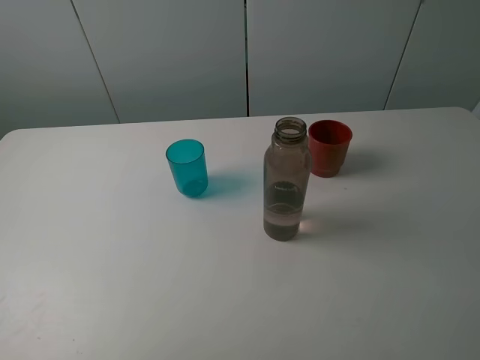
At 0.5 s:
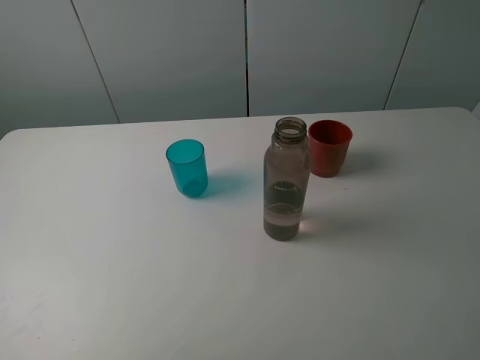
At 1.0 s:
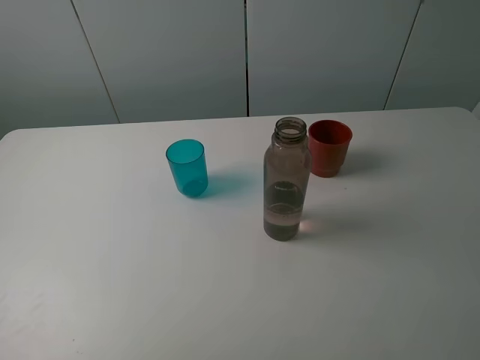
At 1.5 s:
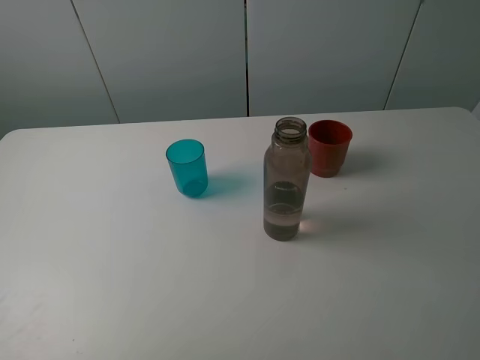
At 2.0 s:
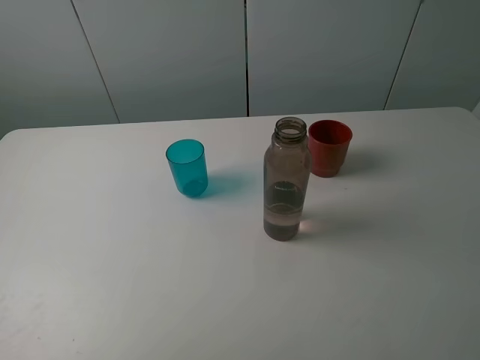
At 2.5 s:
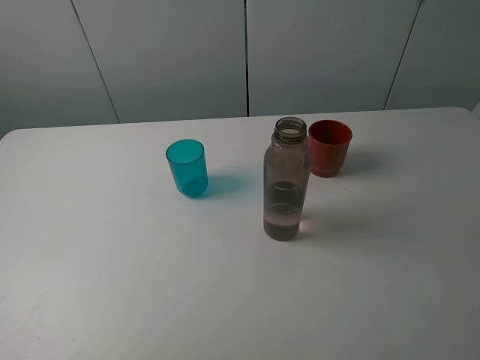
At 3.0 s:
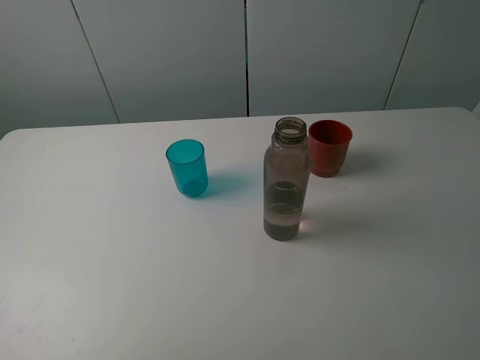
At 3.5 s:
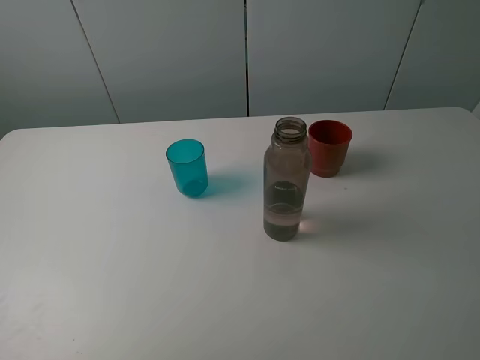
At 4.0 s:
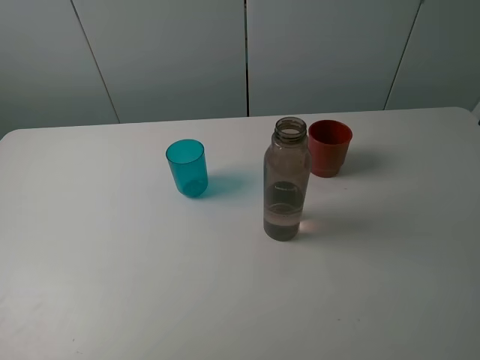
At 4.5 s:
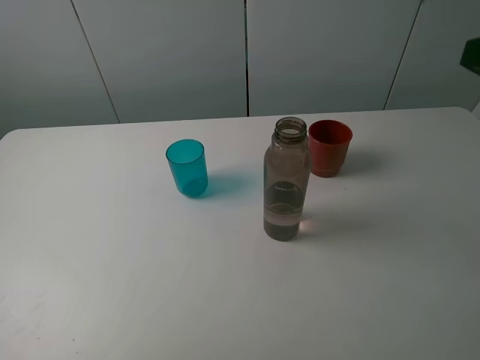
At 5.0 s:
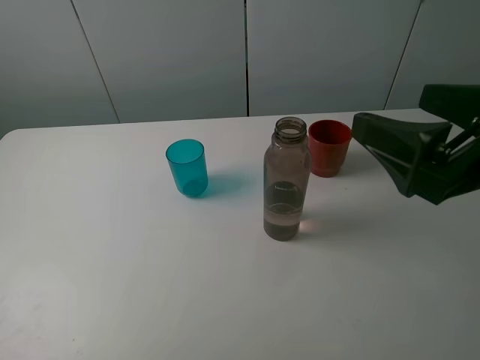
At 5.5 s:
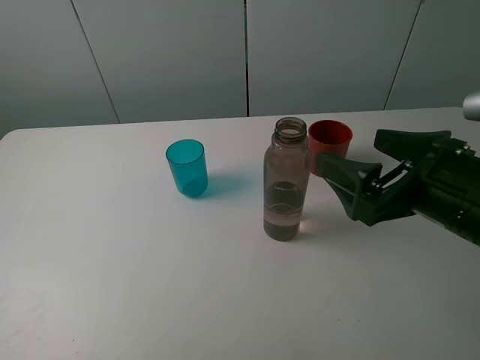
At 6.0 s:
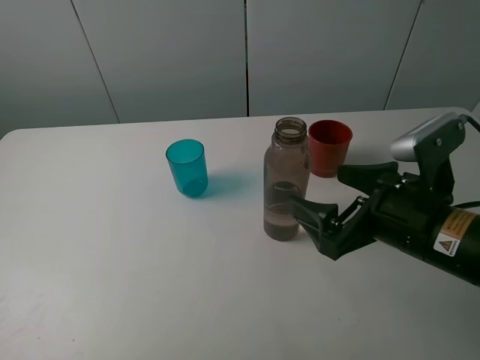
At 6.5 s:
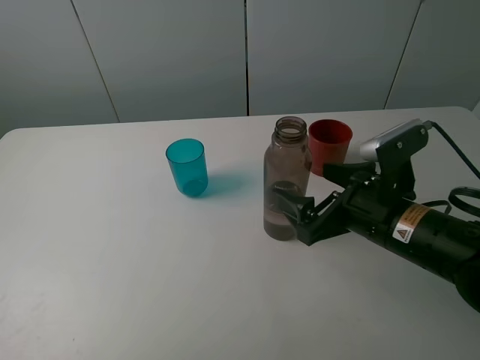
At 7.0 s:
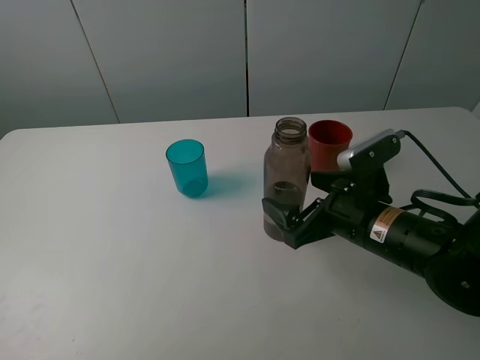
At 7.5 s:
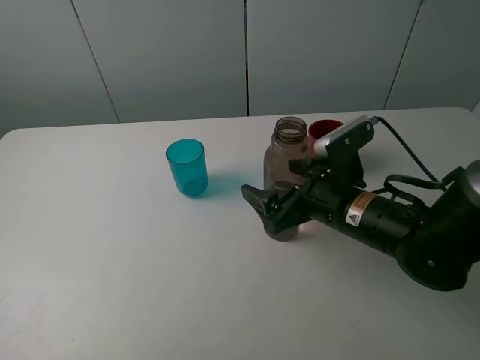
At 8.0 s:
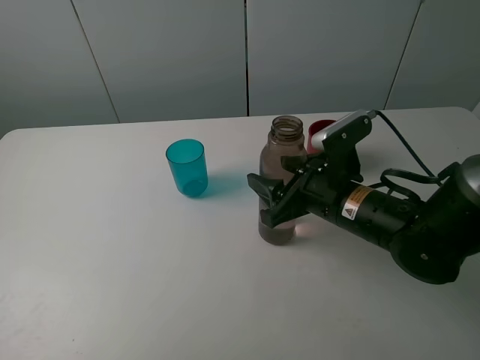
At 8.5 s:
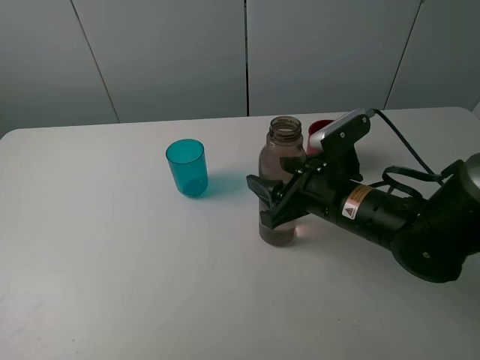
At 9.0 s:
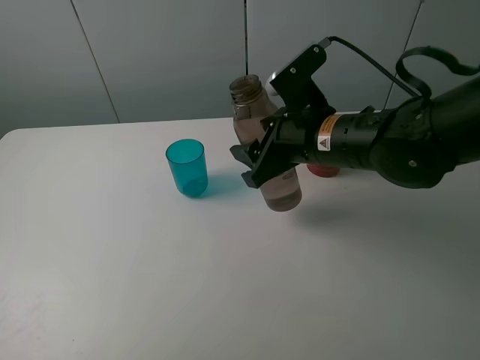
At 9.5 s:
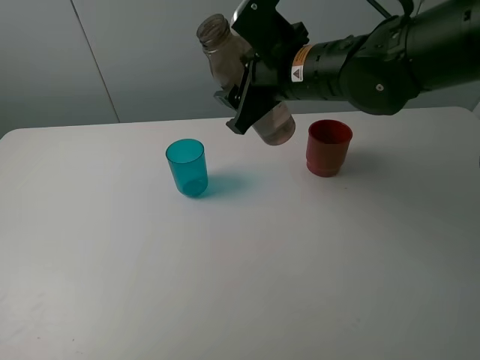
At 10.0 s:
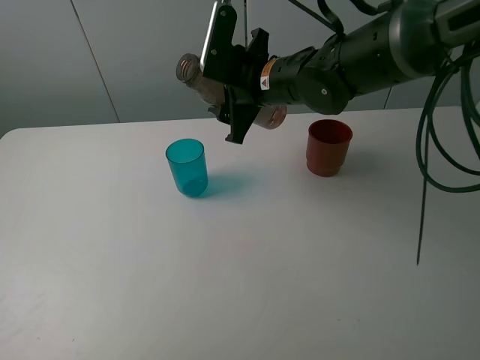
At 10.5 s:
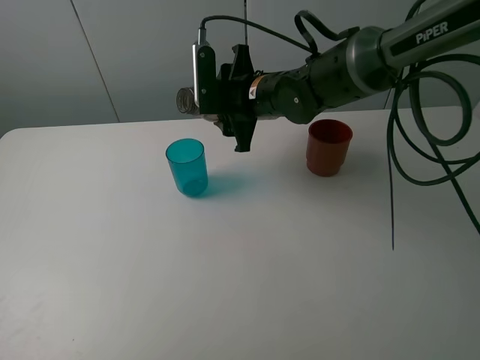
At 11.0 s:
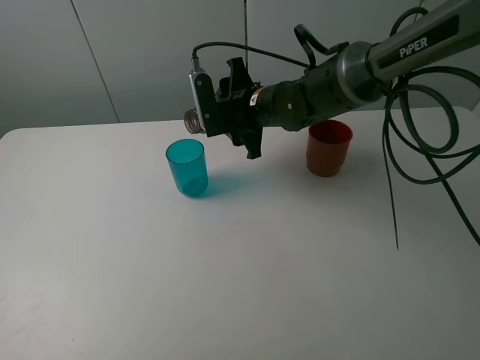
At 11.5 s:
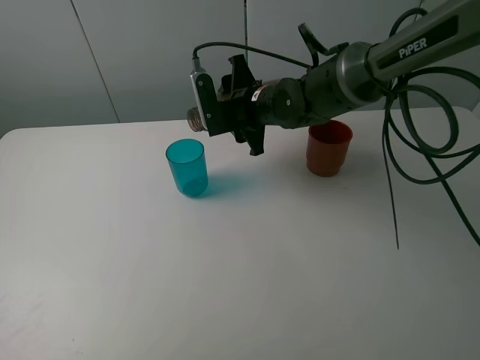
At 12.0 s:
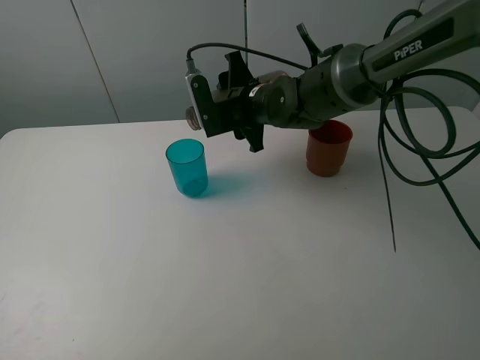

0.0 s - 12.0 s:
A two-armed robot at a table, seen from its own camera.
Task of the whole recording: pick up the bottle and pour water into the cup, then pick up the cup containing water and pour it into another cup.
Step, 0.0 s - 8.0 s: Grasp the brown bottle with the right gripper.
0.0 s - 2.0 s: Both grippers stay about where they are.
4.0 s - 6.0 s: The right gripper goes approximately 20 cm downward, to the left and forward.
6.0 s - 8.0 s: The right gripper heads forward and to the left, covering approximately 10 cm, and closes up.
8.0 s - 10.0 s: The right gripper travels forward, upward and to the left by about 20 cm.
10.0 s - 12.0 s: The right gripper changes place by about 5 cm.

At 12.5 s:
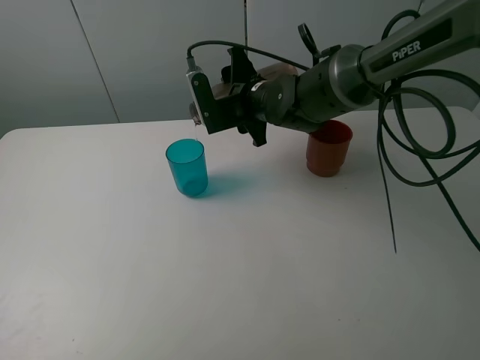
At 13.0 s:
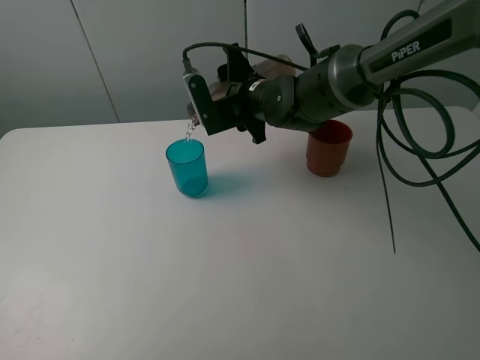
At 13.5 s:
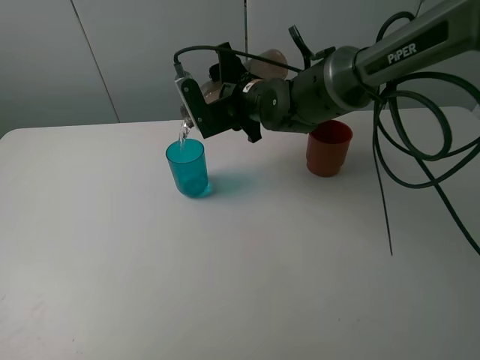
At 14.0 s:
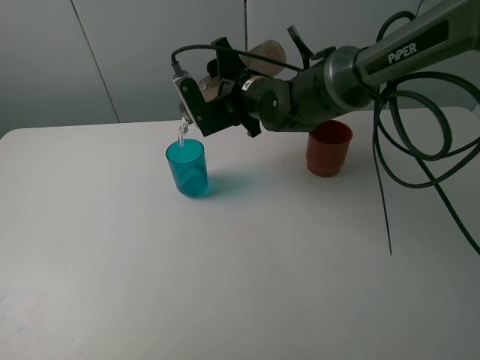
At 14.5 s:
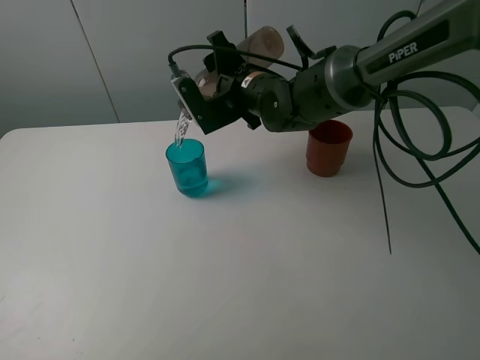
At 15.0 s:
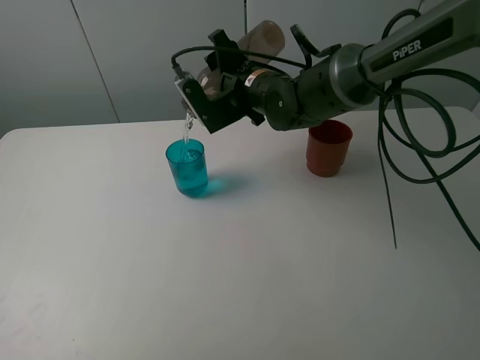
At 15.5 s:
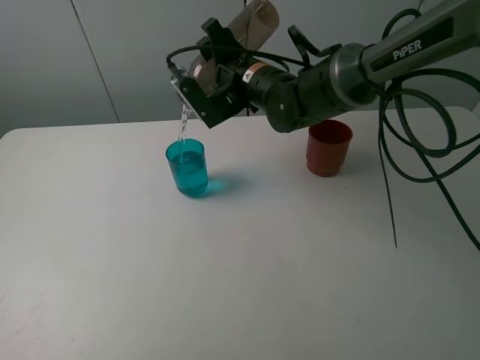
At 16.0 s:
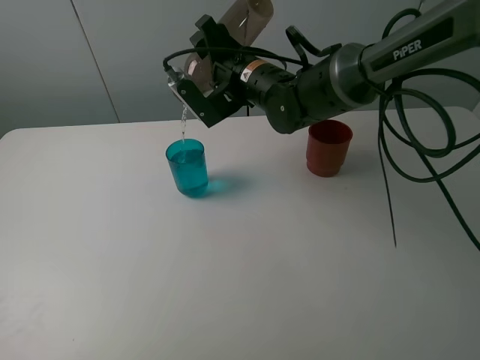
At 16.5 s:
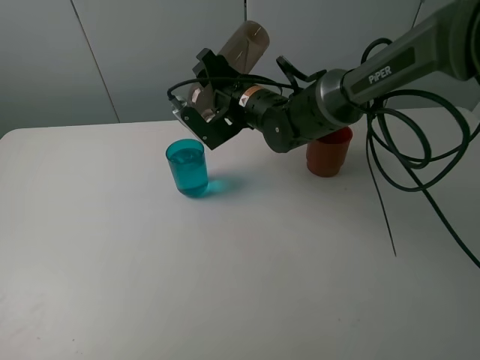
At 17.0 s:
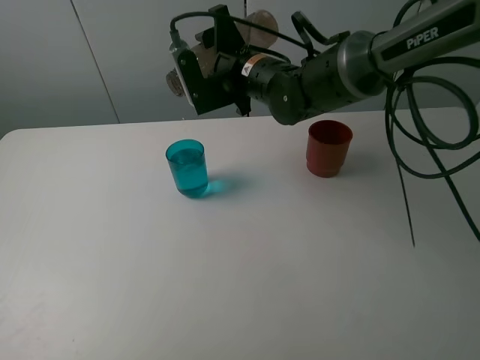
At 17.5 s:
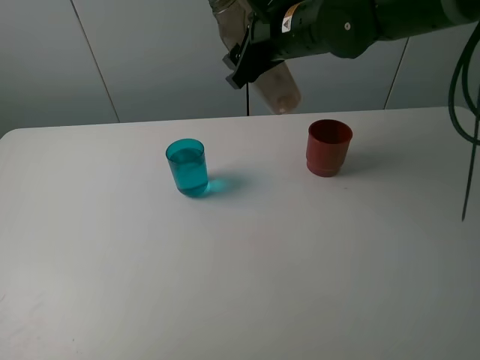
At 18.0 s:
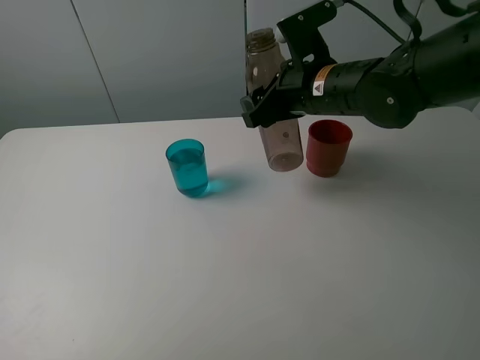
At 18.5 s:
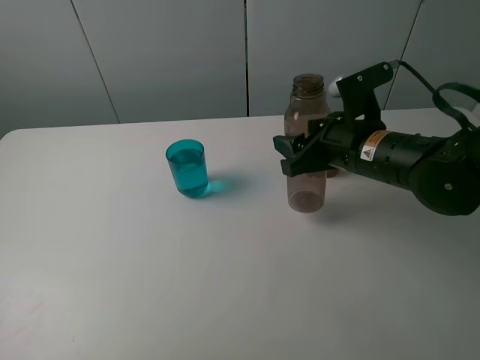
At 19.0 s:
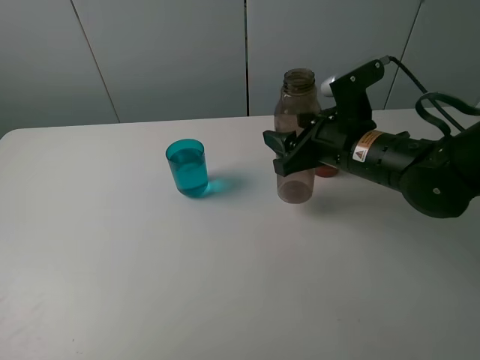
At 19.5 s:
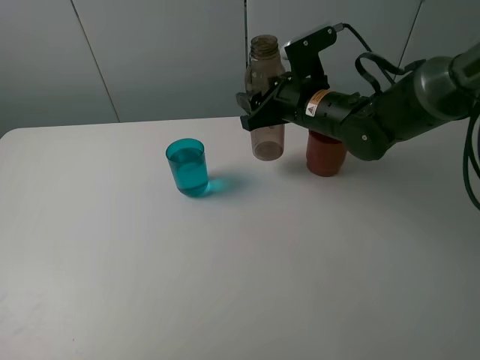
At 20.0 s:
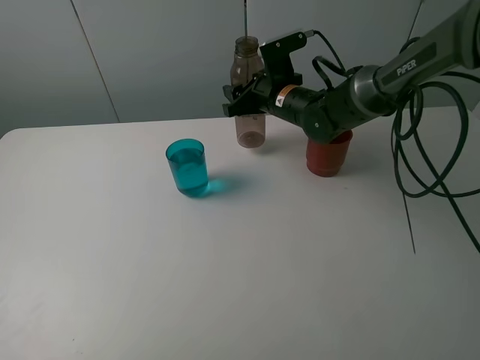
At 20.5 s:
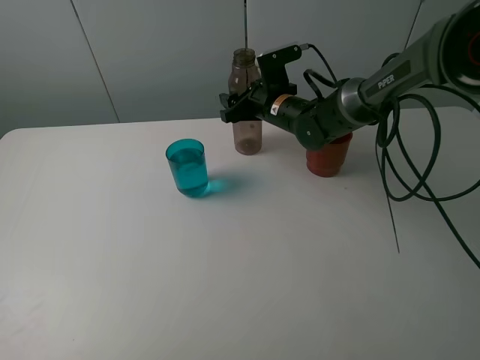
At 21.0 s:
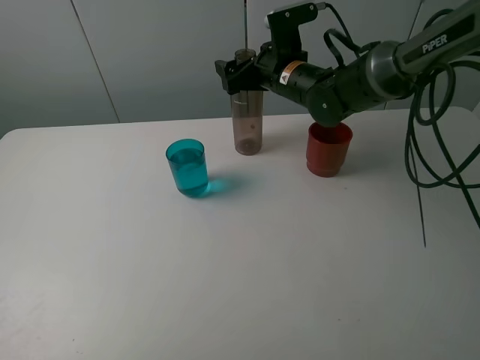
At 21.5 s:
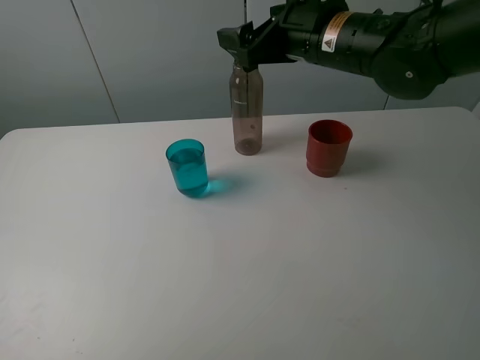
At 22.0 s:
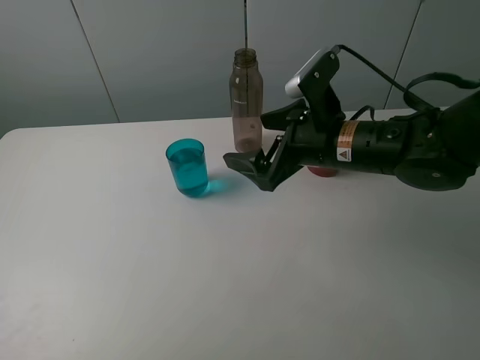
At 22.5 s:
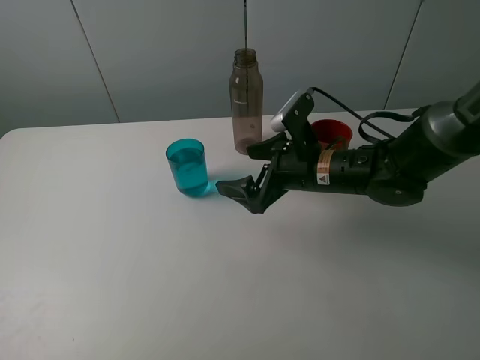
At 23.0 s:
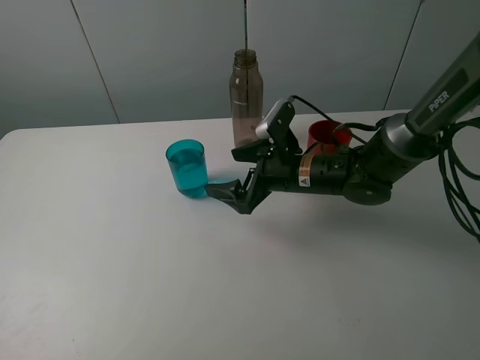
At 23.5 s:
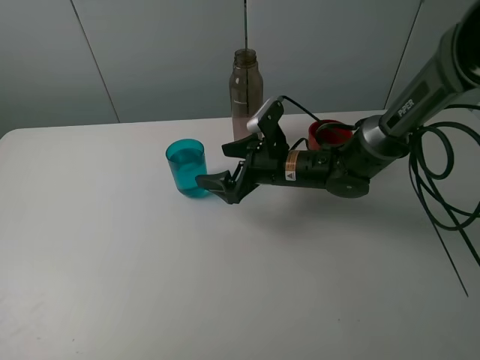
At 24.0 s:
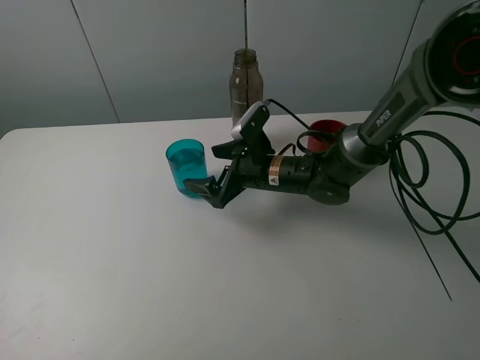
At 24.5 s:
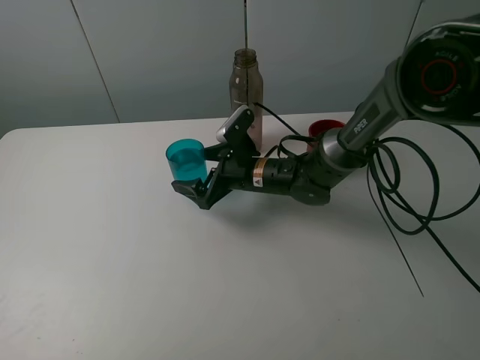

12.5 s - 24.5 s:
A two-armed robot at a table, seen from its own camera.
Task of the whole recording: pick up the bottle and pour water into the cup, then pick up the cup containing water and pour it into another cup.
Step, 12.5 s - 16.5 s: Pour water from brown bottle to blue cup with the right gripper.
Step, 17.0 s - 20.5 s: Place the brown bottle with the right gripper.
12.5 s - 14.5 s: The grippers make only small movements.
14.5 s - 16.5 s: The grippers stay close to where they were, moving slightly.
16.5 s - 18.5 s: The right gripper is displaced to the right and backward by approximately 20 cm.
18.5 s - 20.5 s: The right gripper shifts some 20 cm forward and to the left, and opens its fingers.
20.5 s - 22.5 s: The right gripper shifts roughly 15 cm backward.
22.5 s - 24.5 s: The right gripper heads to the left, forward and downward, covering roughly 10 cm.

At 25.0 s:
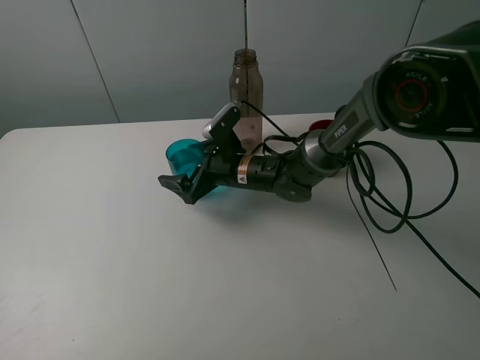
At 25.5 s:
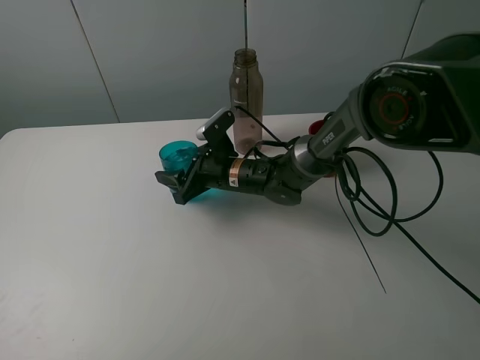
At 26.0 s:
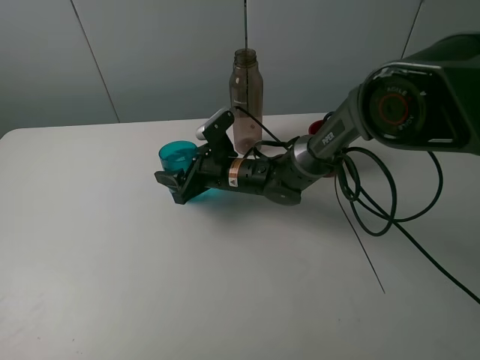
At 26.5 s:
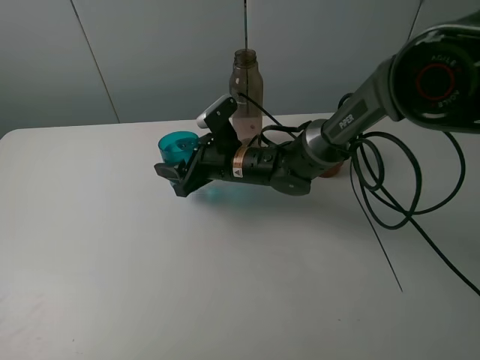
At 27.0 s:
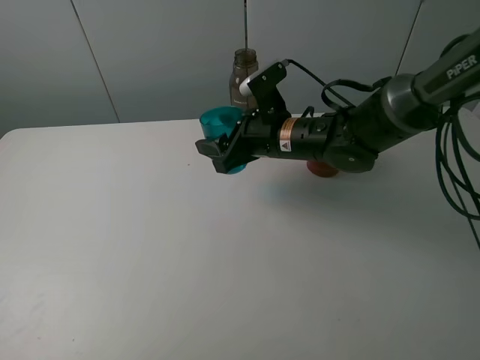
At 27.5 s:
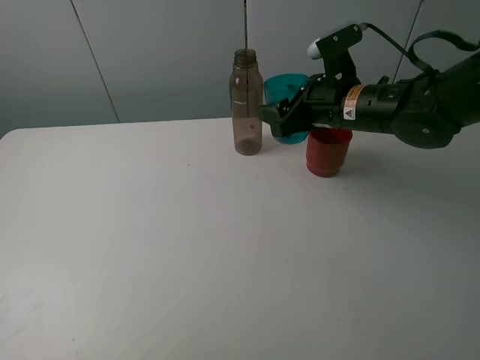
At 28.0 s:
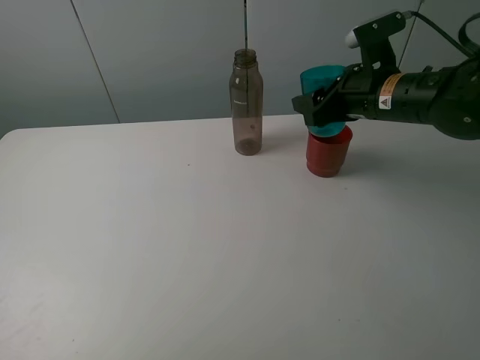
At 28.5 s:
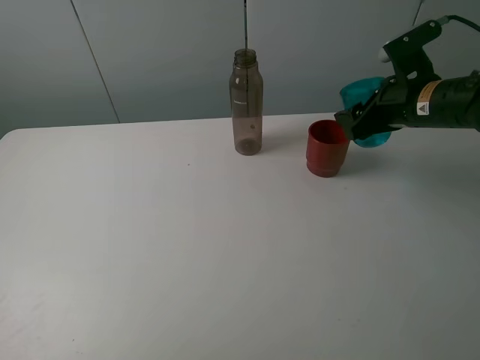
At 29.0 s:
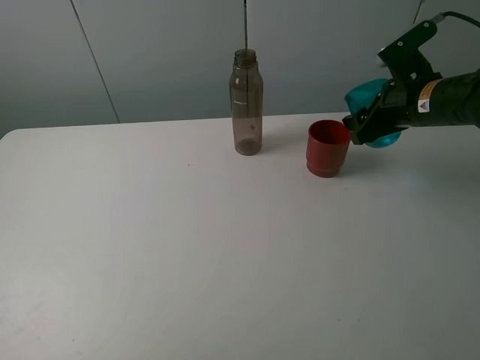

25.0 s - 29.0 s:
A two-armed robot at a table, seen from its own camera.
Task of the whole recording: pick up the bottle and pour water into the cup, then pick up the cup containing water and pour it into another cup.
25.0 s - 27.0 s: The right gripper shifts some 10 cm upward and to the right, and closes up.
27.0 s - 29.0 s: The right gripper moves to the right, approximately 20 cm.
